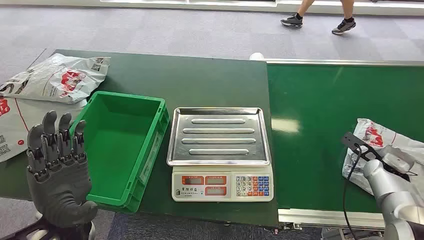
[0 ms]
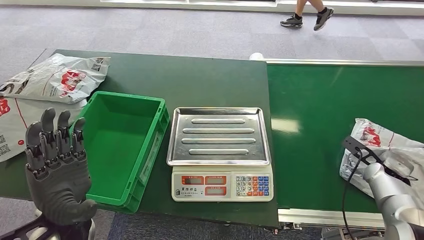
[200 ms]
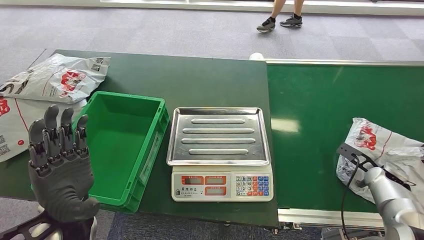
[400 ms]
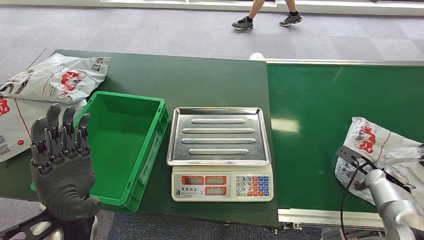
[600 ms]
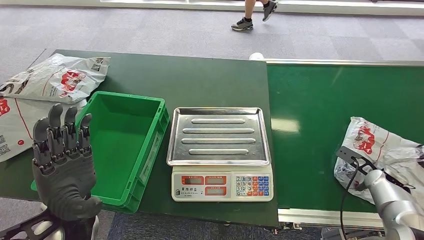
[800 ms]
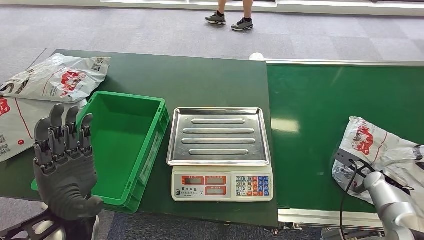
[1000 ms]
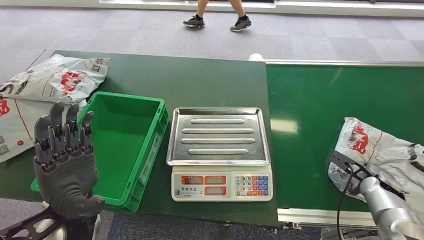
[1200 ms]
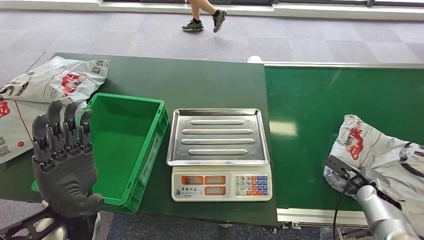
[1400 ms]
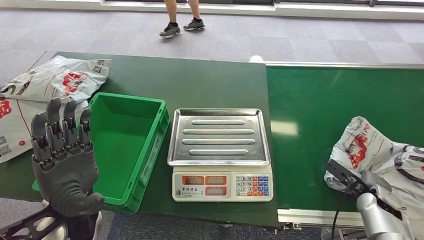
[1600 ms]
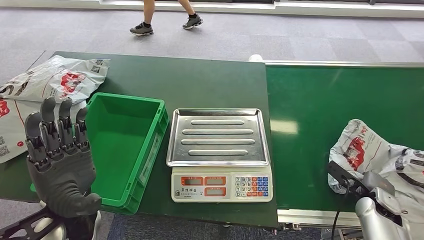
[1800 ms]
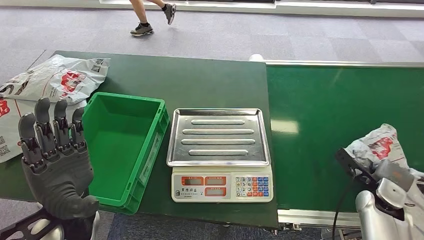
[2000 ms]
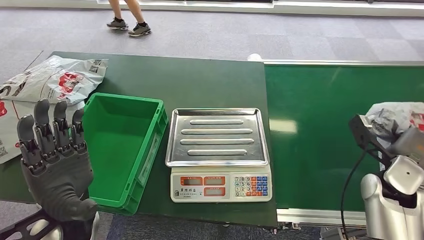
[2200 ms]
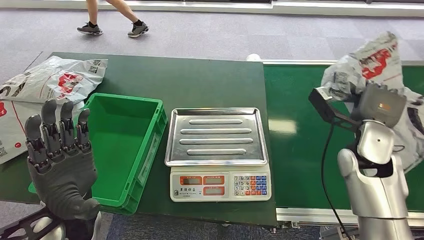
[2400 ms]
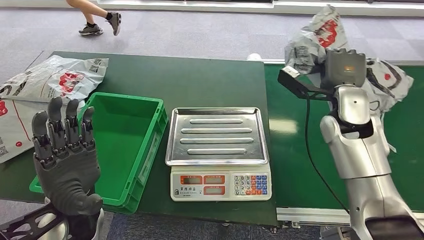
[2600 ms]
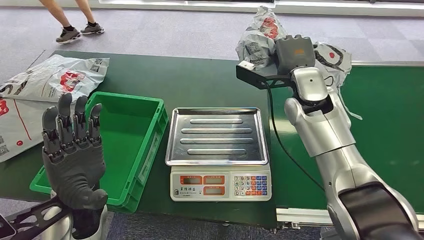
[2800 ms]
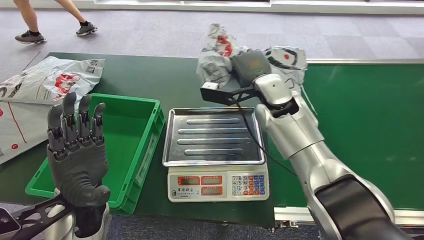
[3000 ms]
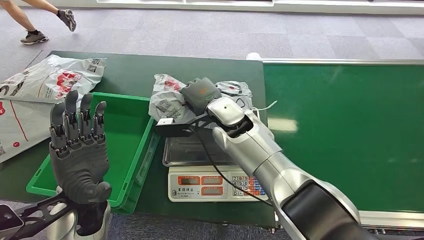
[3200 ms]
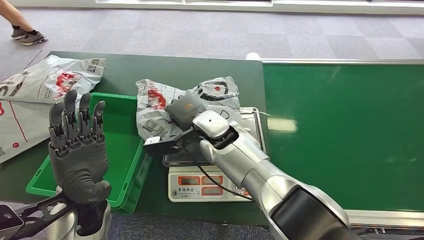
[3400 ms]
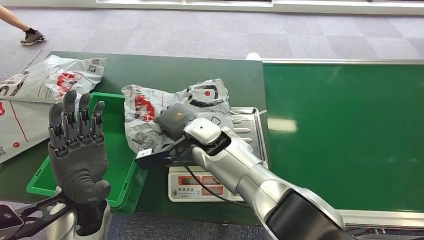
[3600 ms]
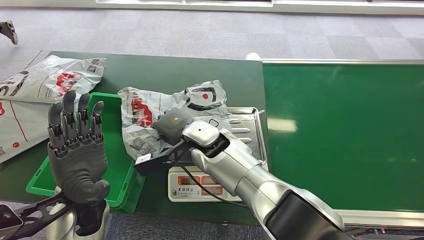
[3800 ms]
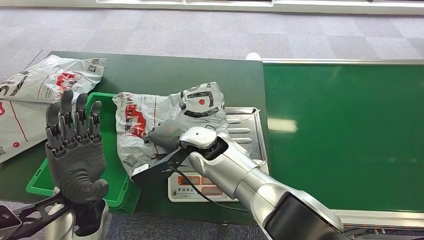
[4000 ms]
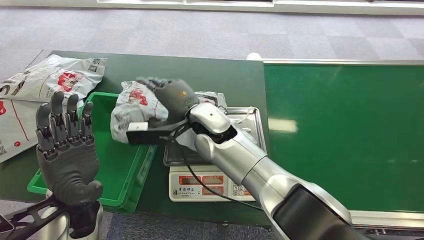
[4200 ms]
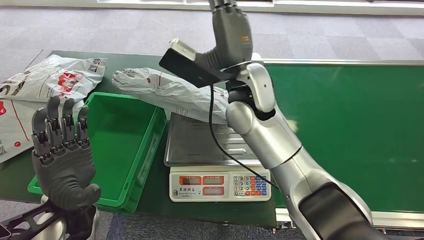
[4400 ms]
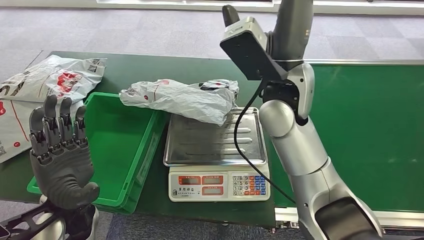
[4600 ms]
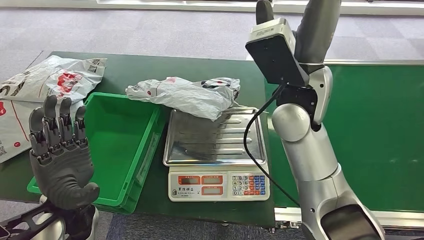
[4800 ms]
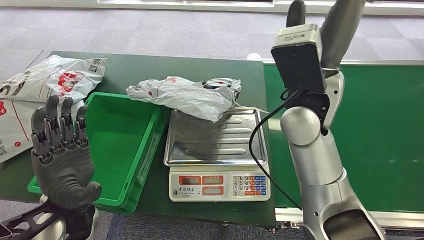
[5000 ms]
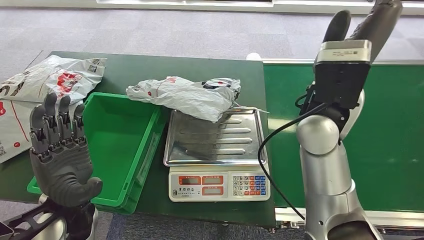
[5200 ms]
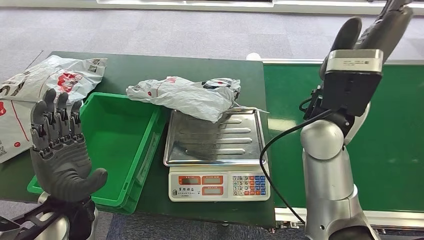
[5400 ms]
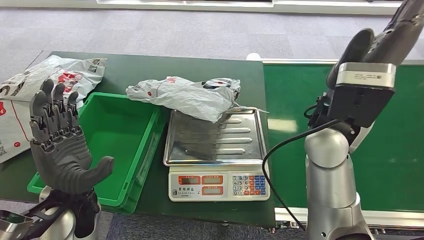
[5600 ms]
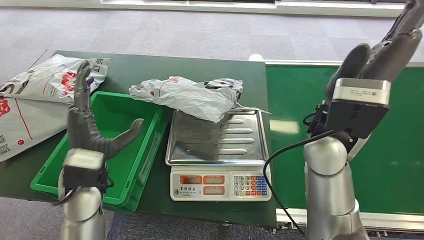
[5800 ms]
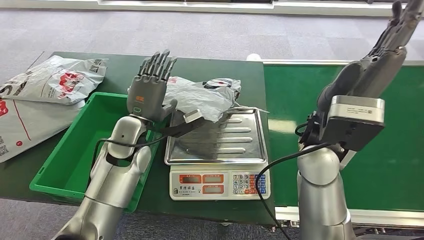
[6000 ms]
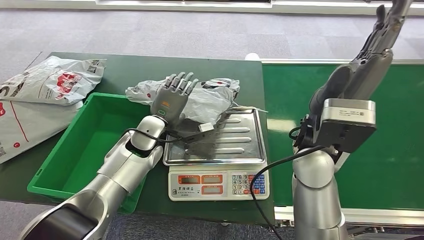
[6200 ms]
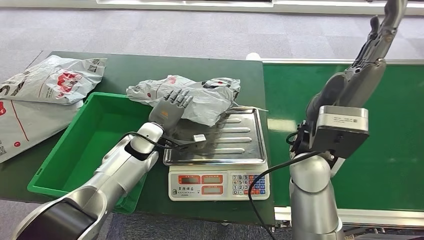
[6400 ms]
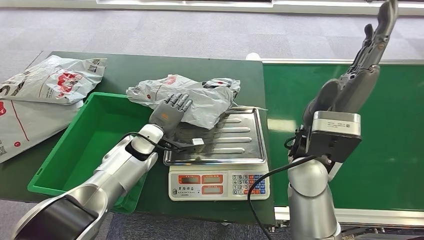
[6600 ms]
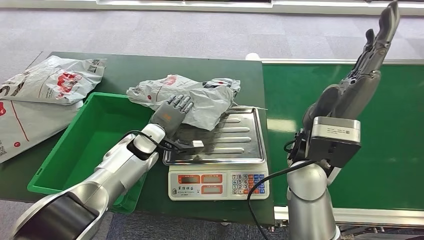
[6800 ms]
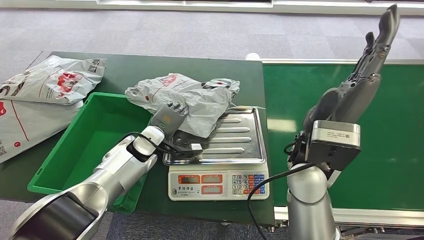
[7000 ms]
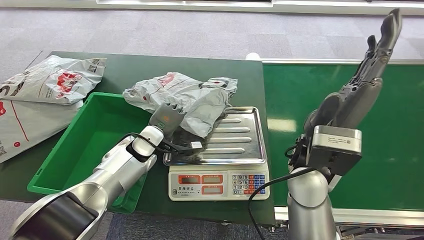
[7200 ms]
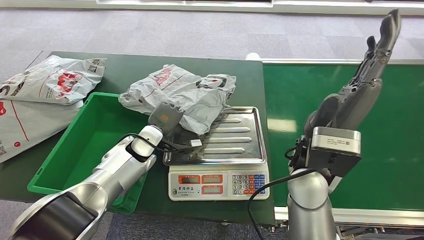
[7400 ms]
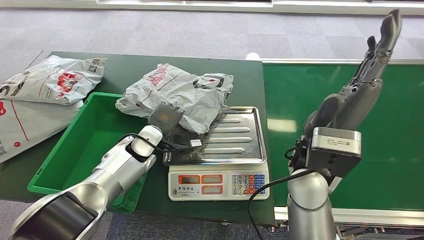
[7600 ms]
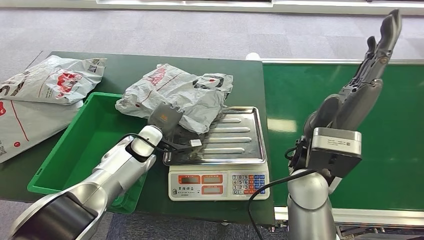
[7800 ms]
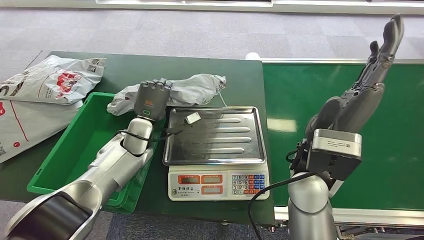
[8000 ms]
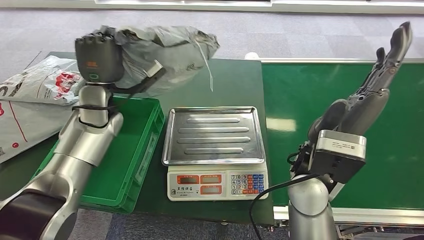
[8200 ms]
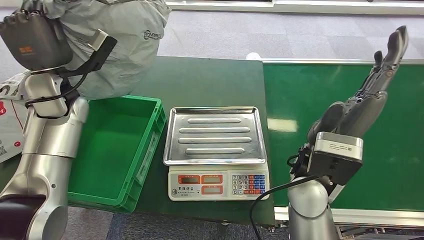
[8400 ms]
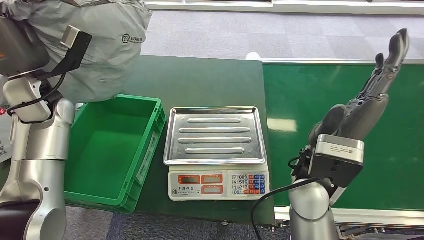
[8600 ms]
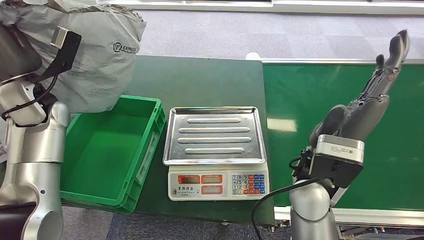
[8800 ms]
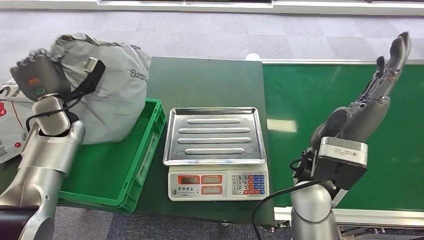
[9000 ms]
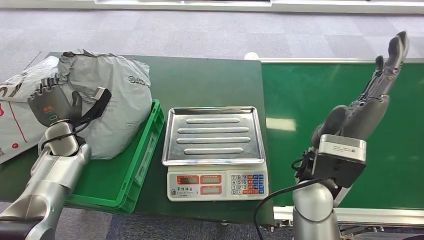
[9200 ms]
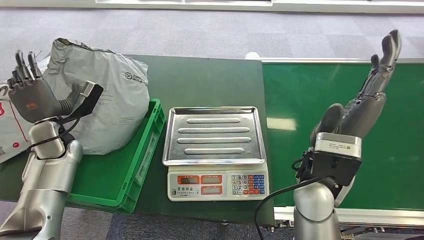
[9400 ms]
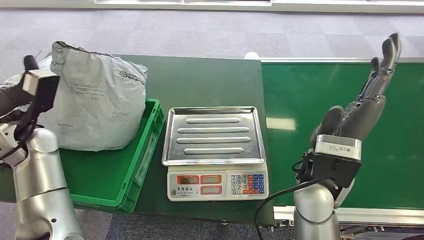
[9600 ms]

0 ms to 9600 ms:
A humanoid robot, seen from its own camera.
Task of the whole recording: Weigh the package on the weighing device and place it in the left basket.
Step, 0 ms to 2200 ms: Pick up the package from the conveyor belt.
Step, 3000 ms to 4800 ms: Place the package onto the inbound machine.
Step, 6400 ms to 8200 ms: Pick up the package from the inbound machine.
Step, 8400 ms to 9400 ms: Place the package into the parcel locker.
